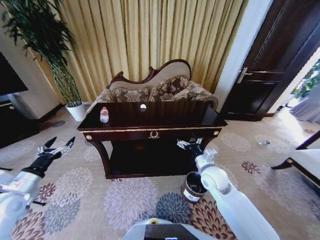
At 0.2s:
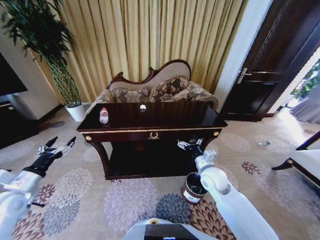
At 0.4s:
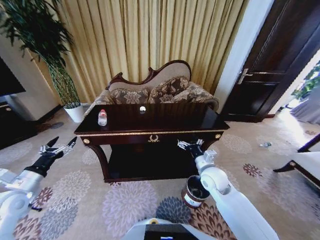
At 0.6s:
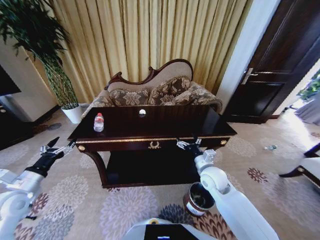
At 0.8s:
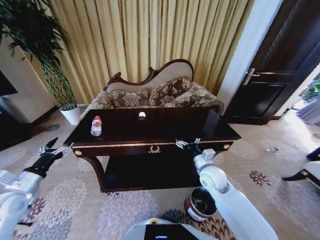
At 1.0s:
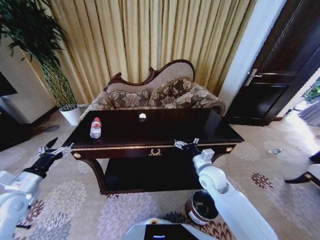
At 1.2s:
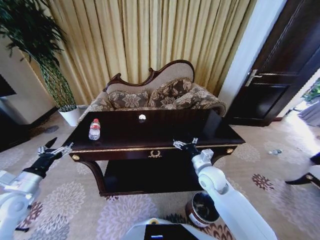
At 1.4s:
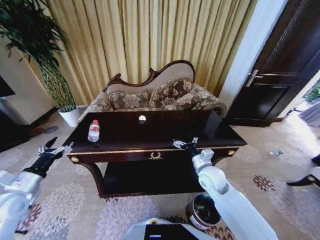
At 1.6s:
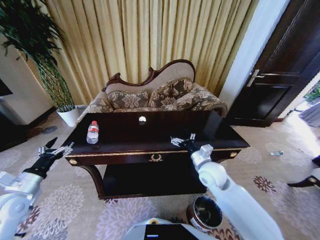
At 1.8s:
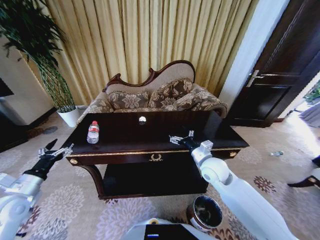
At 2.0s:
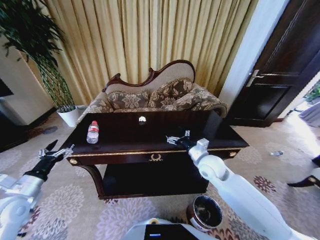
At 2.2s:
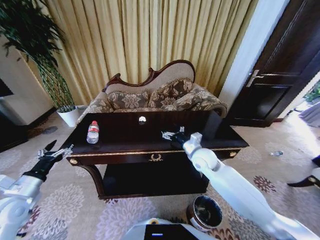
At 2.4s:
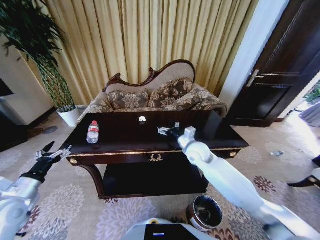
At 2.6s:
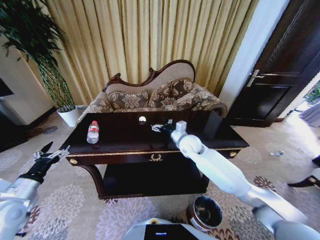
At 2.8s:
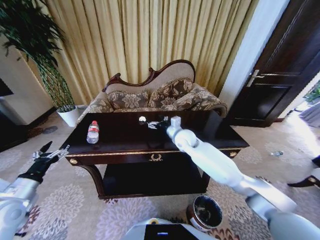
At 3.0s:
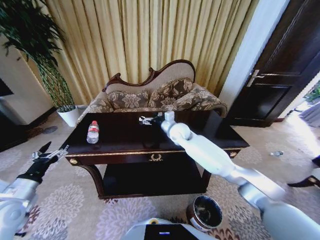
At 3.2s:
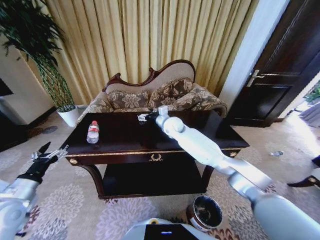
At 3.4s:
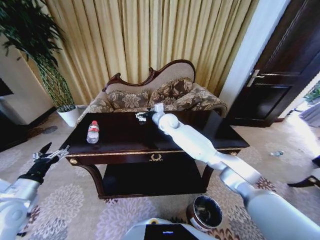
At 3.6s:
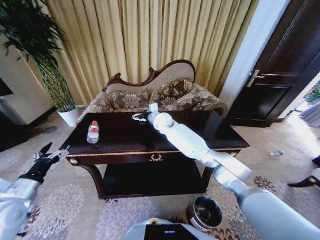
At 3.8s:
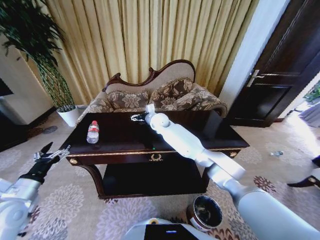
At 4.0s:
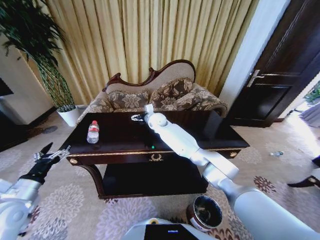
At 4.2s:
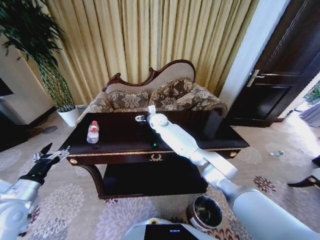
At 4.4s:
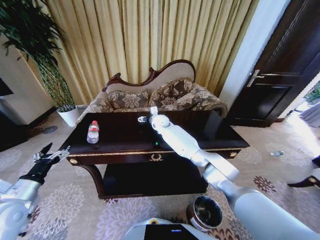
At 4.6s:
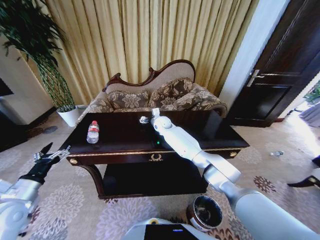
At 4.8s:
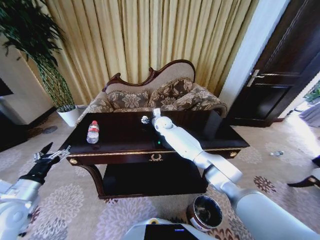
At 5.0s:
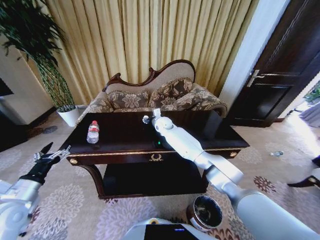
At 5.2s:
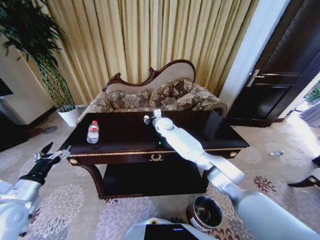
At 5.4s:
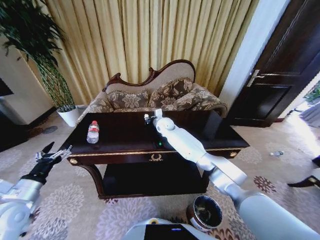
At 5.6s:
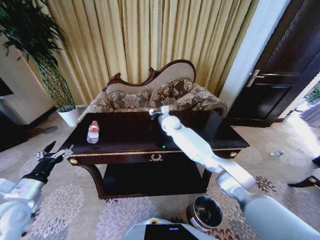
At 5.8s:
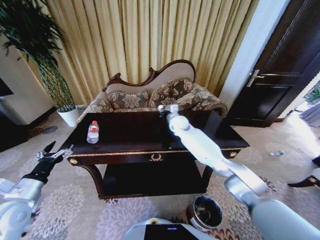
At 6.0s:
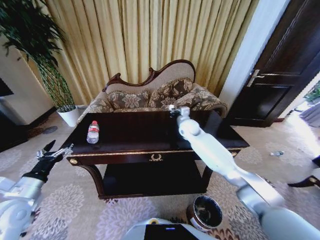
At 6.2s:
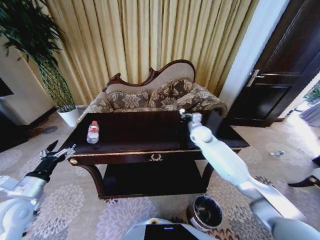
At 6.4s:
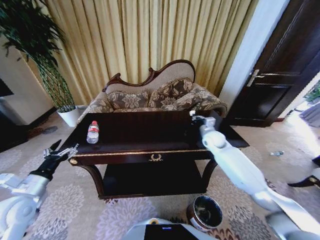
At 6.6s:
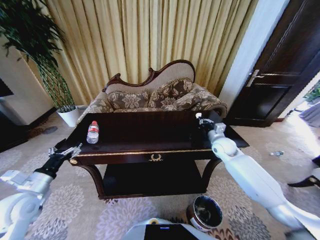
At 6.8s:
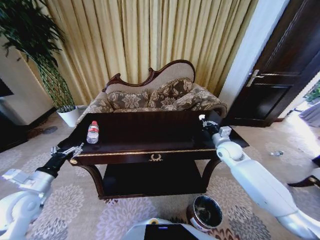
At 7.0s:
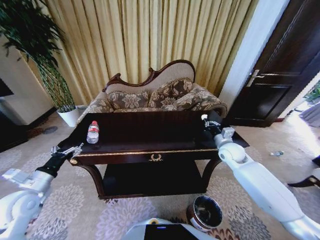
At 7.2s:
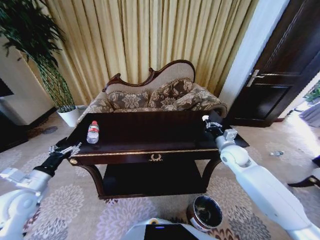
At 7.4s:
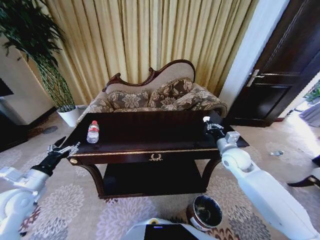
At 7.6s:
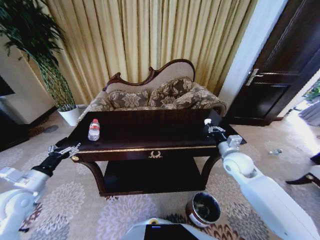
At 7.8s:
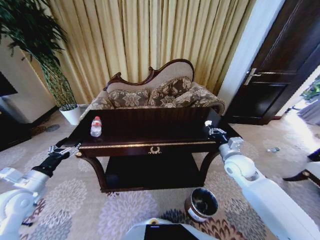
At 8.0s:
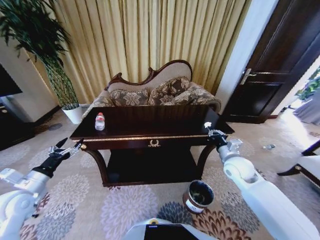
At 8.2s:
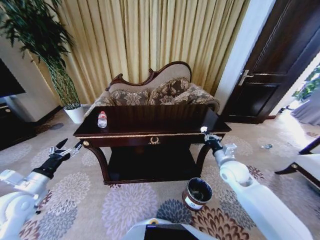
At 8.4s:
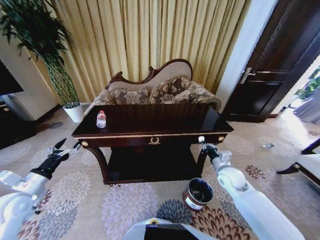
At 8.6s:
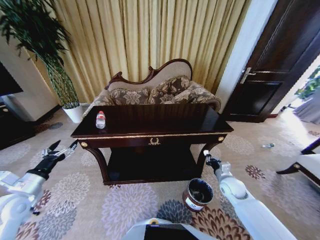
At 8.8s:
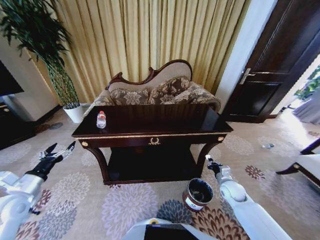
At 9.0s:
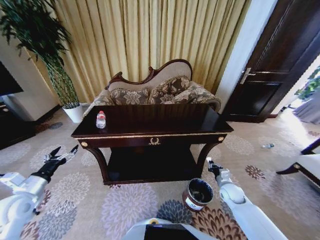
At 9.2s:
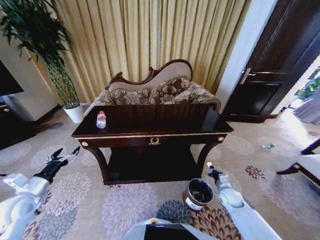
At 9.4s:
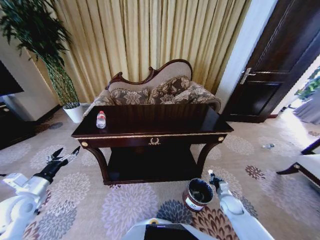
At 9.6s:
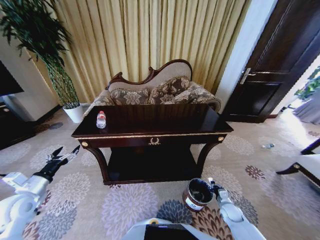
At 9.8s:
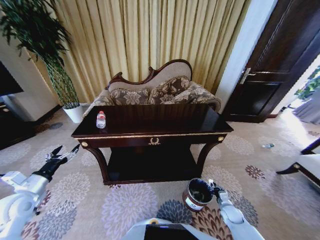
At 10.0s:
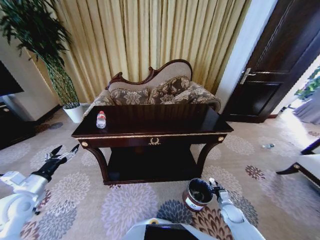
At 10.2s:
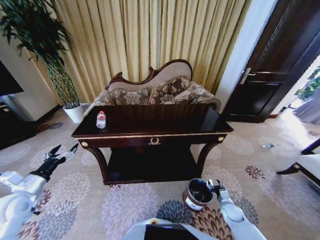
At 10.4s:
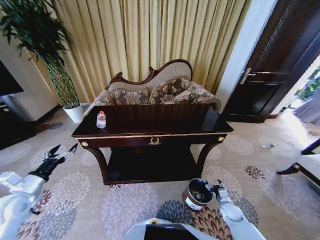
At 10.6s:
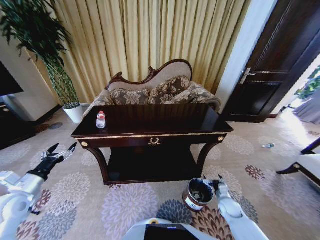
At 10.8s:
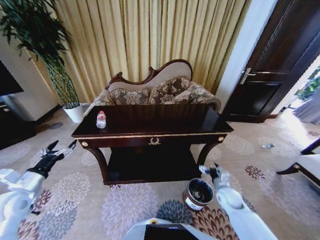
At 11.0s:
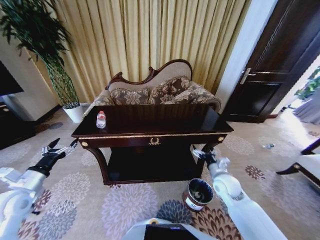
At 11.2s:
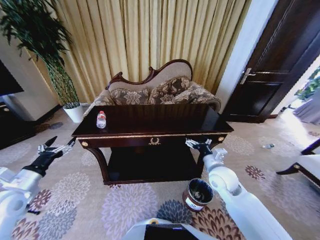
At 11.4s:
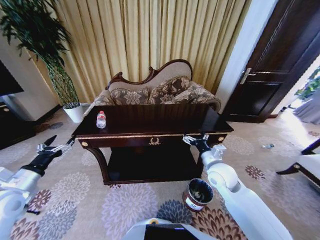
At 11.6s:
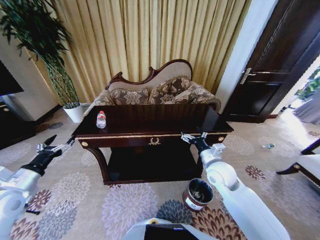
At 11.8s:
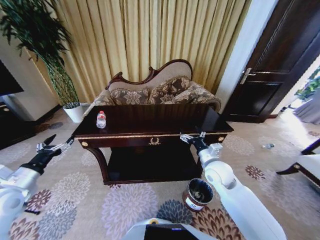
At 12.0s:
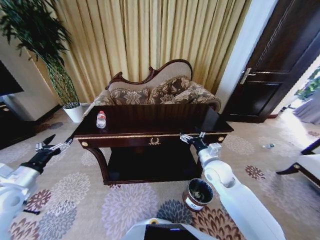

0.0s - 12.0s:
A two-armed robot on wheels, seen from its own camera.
Task of the whole recording: Move to the front of the table and place the trash on the table into the trash bin.
1.6s - 3.0s: The right gripper travels forward and to the left by roughly 20 cm.
3.0s - 4.4s: The right gripper heads forward and to the left, covering about 15 cm.
4.4s - 6.0s: The right gripper shifts about 15 cm to the right and backward, and closes its fingers.
6.0s - 7.6s: The right gripper shifts roughly 25 cm backward and to the right.
7.6s - 9.0s: The right gripper goes approximately 20 cm downward.
9.0s - 10.4s: The right gripper heads downward and backward, covering some 15 cm, and opens.
10.4s - 12.0s: The right gripper heads upward and to the left, covering approximately 30 cm.

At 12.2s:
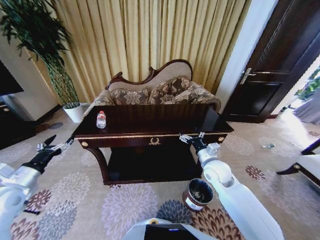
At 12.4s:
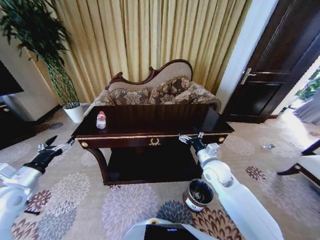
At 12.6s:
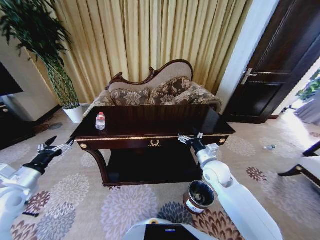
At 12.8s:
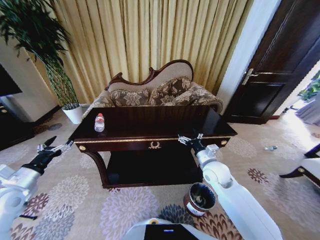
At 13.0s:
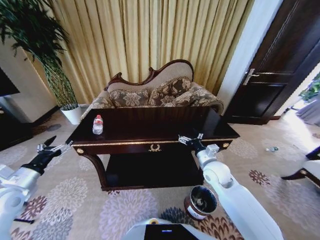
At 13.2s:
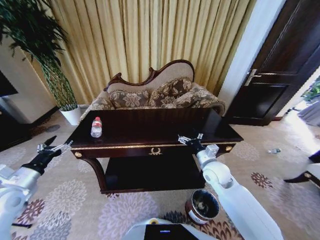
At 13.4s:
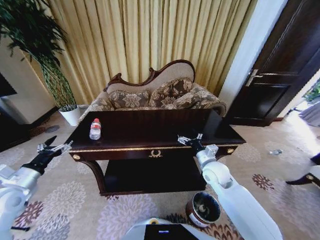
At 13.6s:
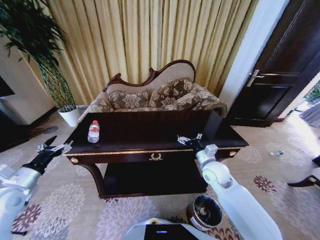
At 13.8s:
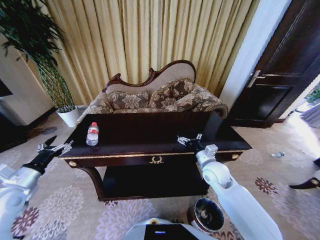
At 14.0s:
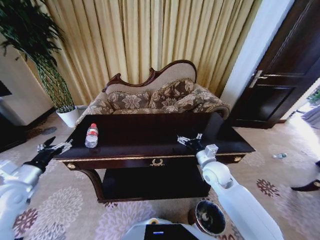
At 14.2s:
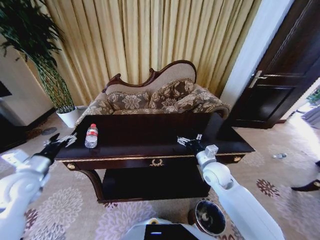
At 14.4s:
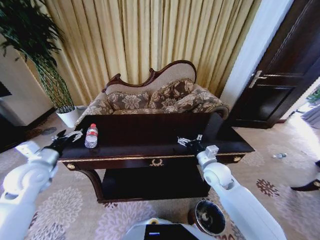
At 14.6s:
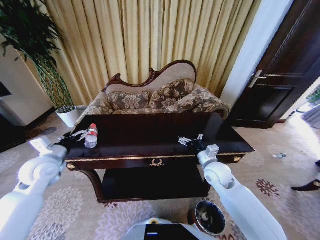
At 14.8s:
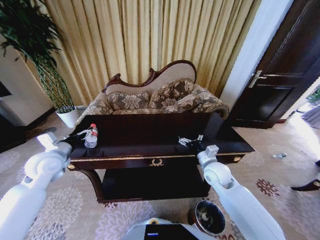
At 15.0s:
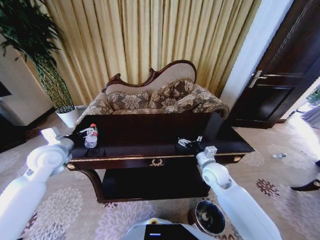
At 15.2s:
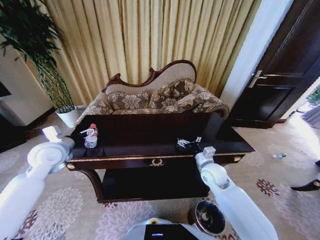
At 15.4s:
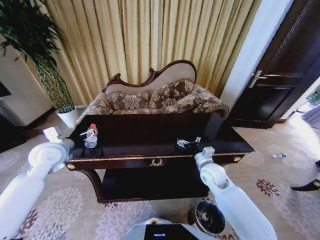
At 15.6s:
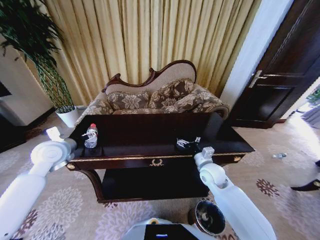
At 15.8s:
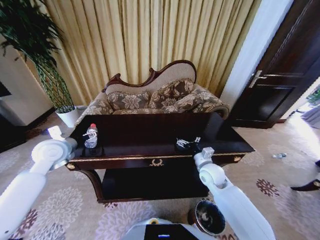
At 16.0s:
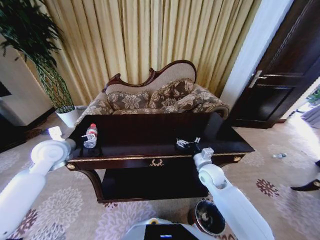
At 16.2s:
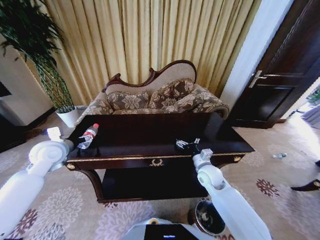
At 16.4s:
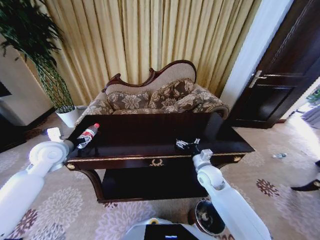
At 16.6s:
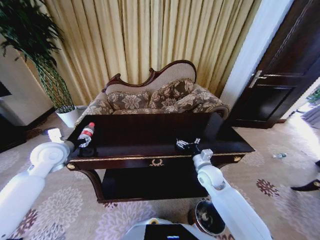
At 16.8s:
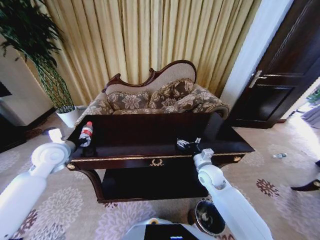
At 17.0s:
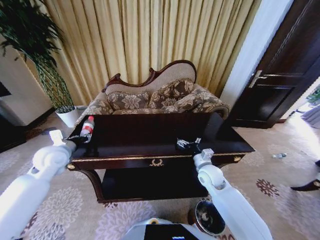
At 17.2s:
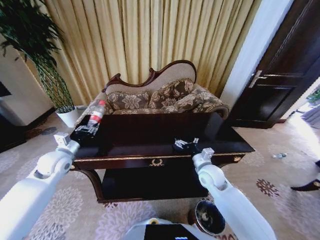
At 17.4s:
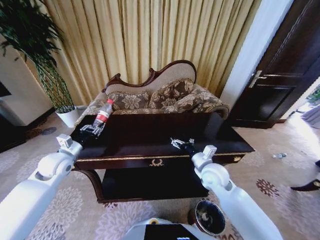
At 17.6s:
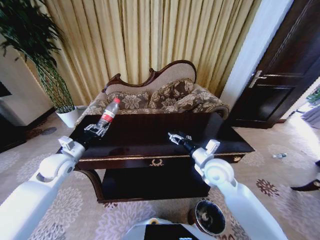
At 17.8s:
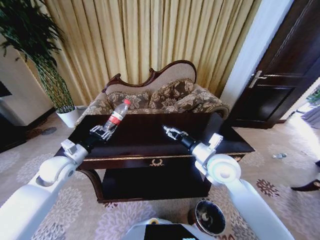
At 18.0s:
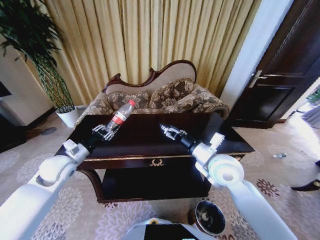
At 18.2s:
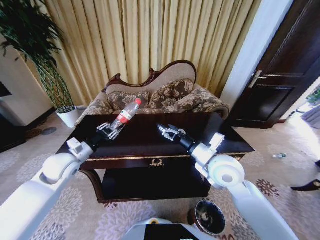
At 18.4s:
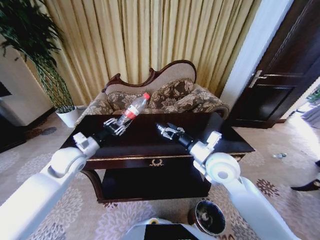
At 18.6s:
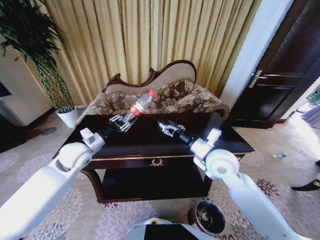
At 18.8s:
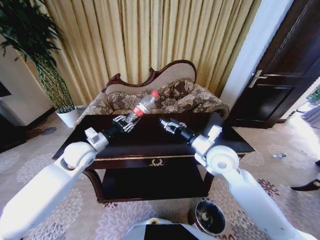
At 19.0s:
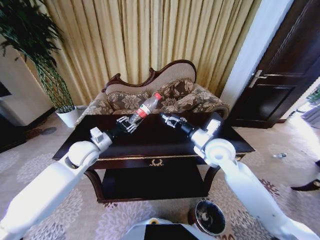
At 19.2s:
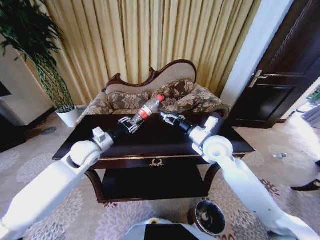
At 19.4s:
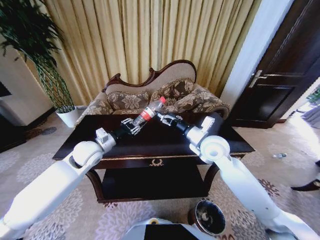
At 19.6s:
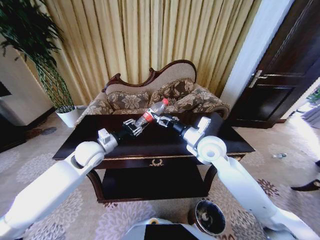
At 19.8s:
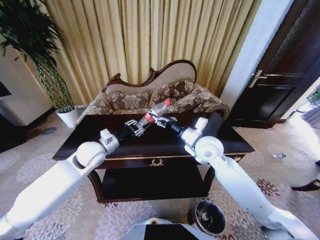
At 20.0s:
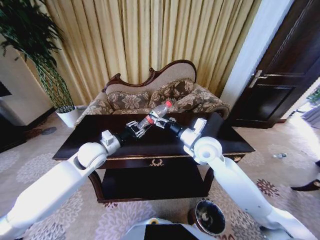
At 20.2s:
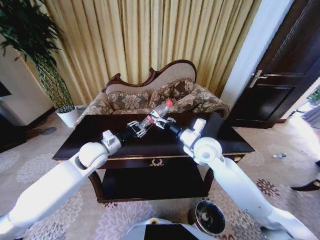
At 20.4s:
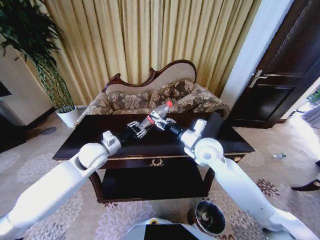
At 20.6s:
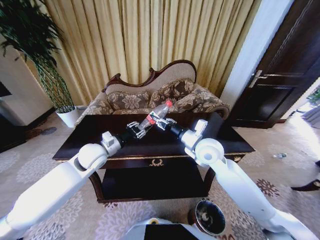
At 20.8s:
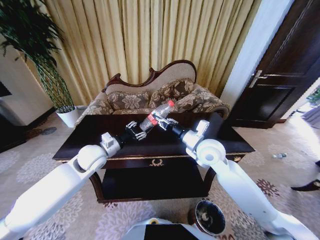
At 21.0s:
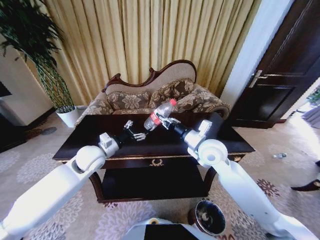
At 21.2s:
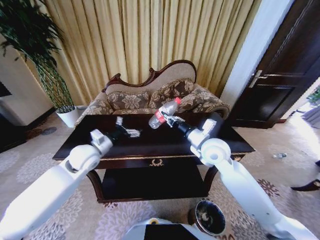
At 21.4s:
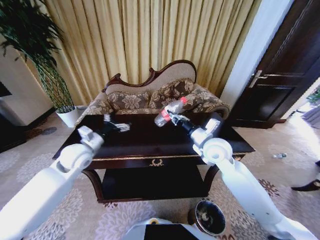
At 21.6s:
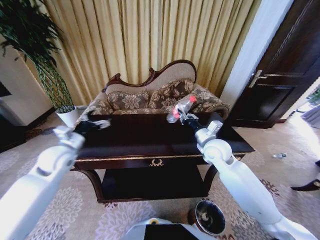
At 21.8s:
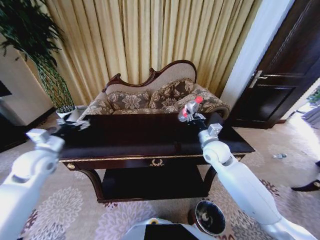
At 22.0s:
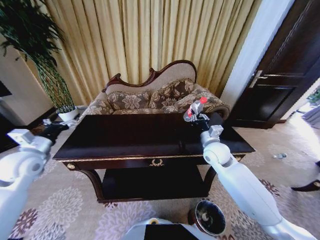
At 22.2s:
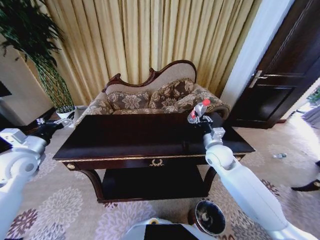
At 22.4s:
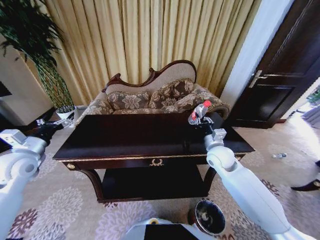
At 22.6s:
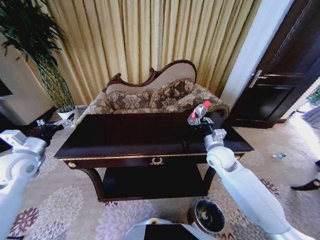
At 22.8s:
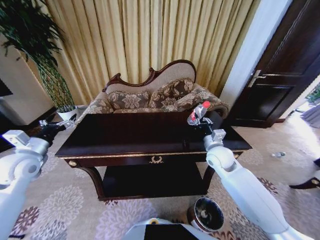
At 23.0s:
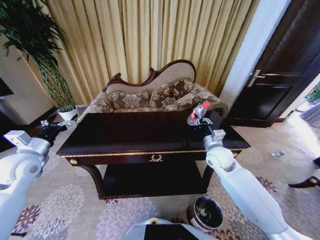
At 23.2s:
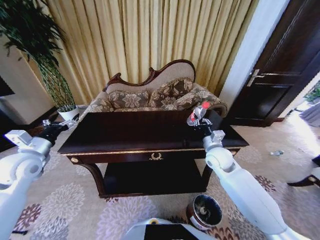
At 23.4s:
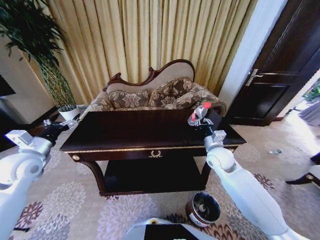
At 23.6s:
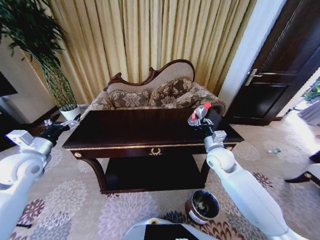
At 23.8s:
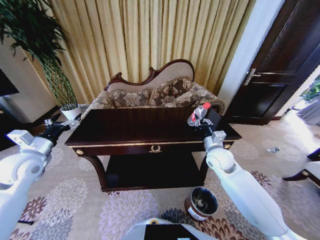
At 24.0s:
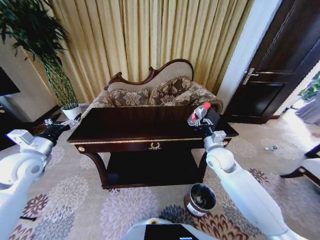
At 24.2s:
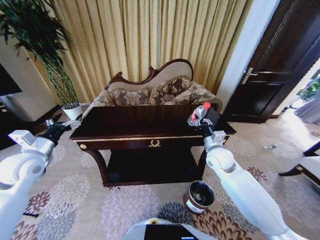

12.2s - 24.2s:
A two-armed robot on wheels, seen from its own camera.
Task of the whole recording: Move to the front of the table and place the trash on the table into the trash bin.
13.8s - 15.2s: The left gripper heads forward, to the right and upward, covering about 15 cm.
15.2s - 16.6s: The left gripper closes its fingers.
16.6s - 18.2s: The left gripper changes place by about 5 cm, and closes. Meanwhile the right gripper shifts roughly 15 cm upward.
18.2s - 19.8s: The right gripper moves forward, some 10 cm. The left gripper is displaced to the right by about 10 cm.
19.8s - 21.2s: The left gripper opens its fingers. The right gripper closes.
21.2s - 22.6s: The right gripper heads downward and to the right, covering some 10 cm; the left gripper goes about 20 cm to the left.
